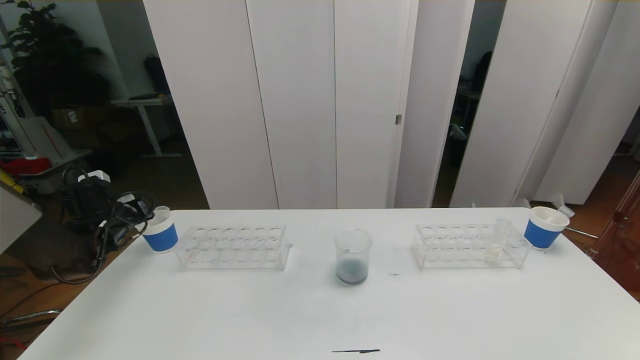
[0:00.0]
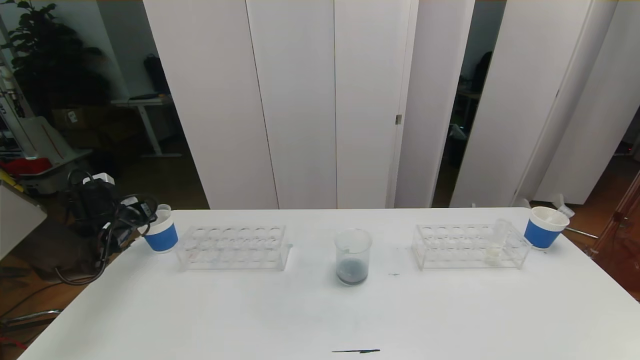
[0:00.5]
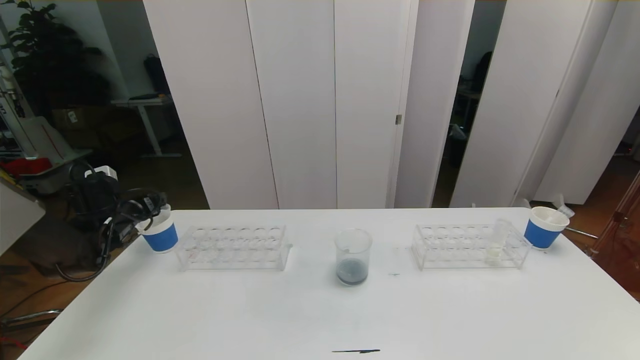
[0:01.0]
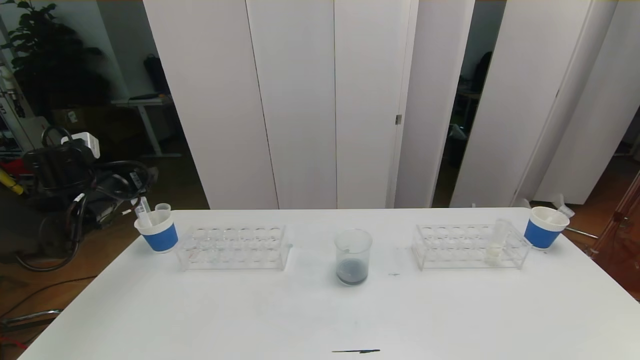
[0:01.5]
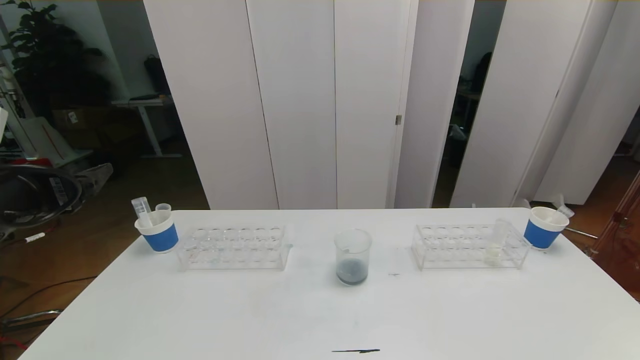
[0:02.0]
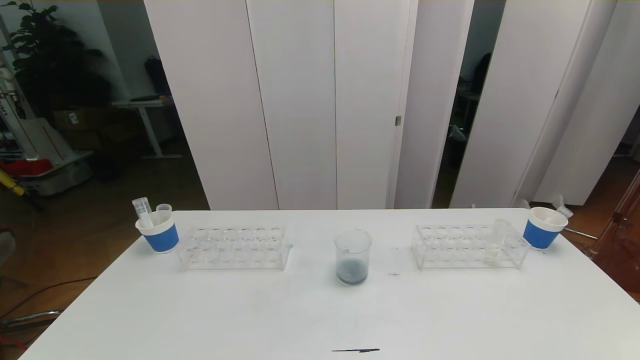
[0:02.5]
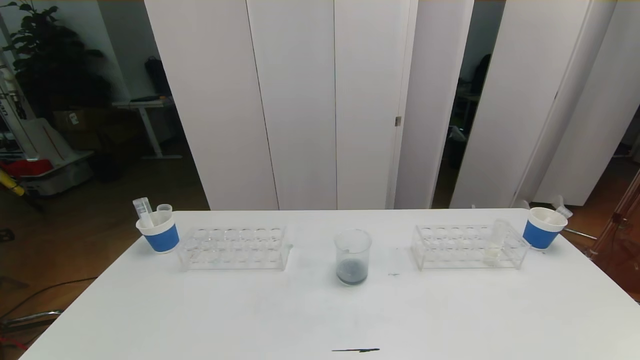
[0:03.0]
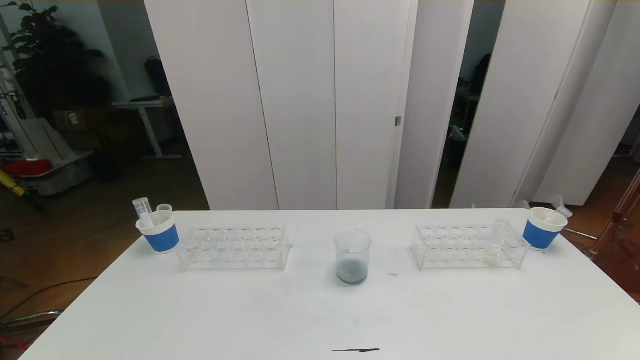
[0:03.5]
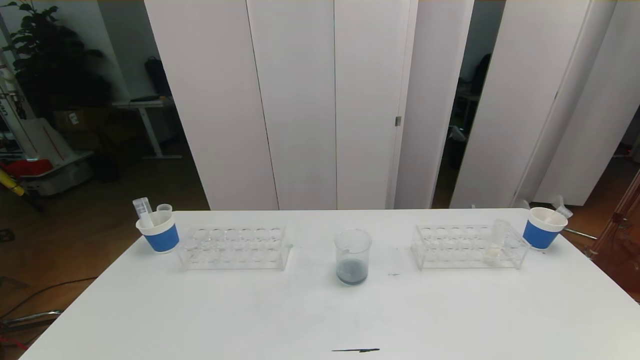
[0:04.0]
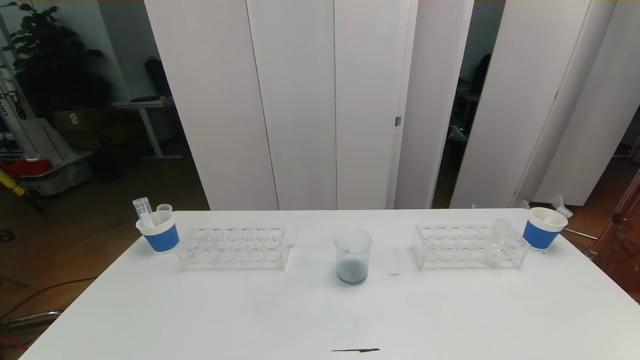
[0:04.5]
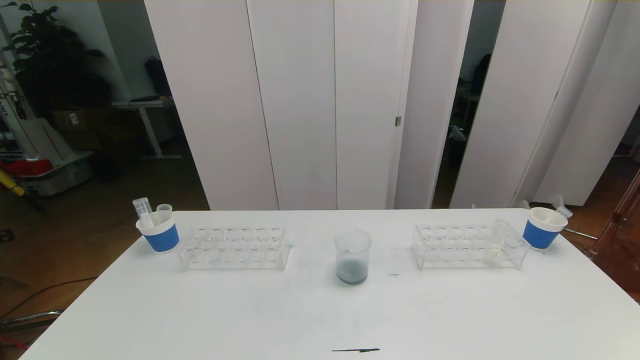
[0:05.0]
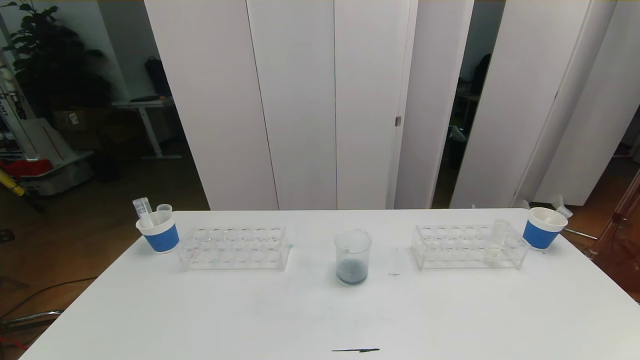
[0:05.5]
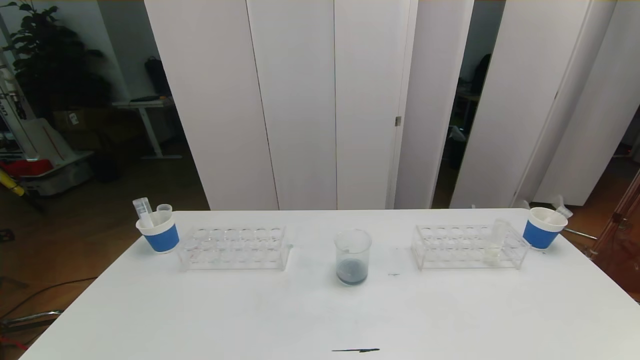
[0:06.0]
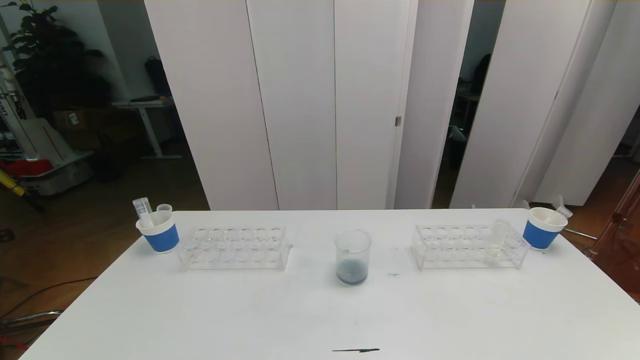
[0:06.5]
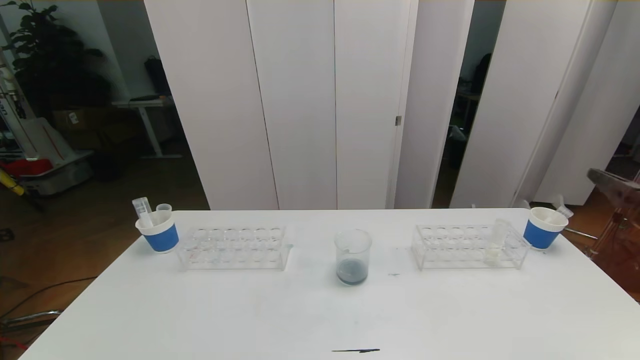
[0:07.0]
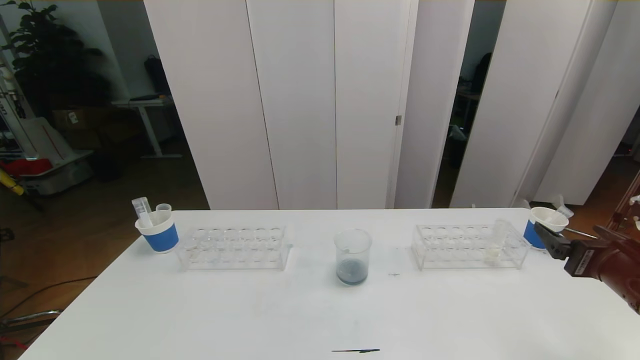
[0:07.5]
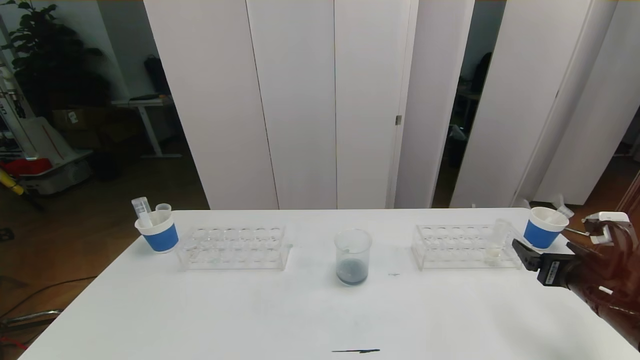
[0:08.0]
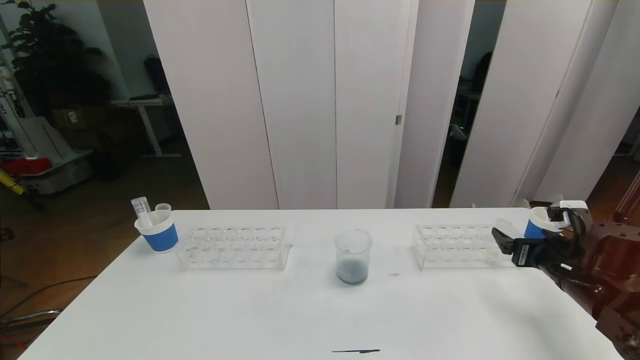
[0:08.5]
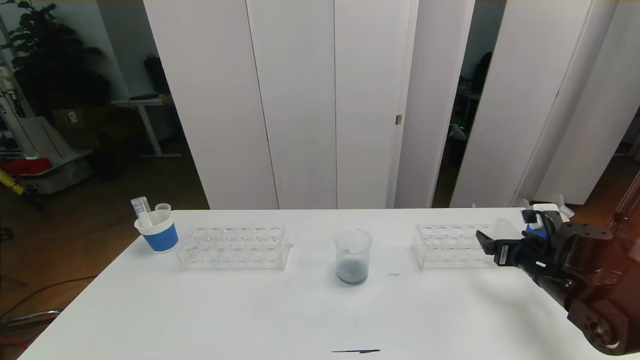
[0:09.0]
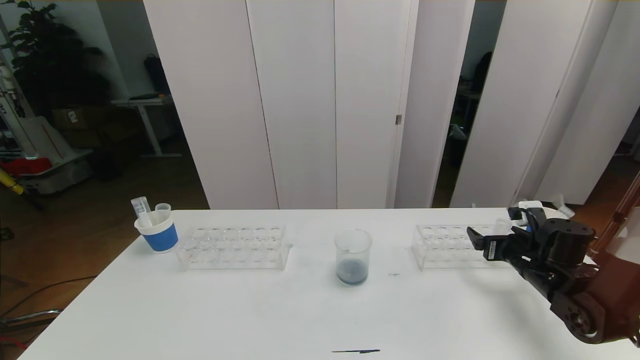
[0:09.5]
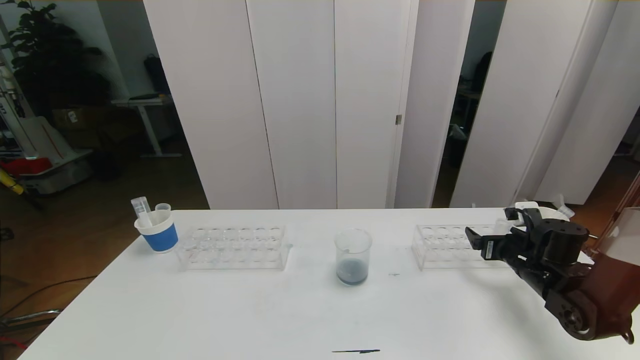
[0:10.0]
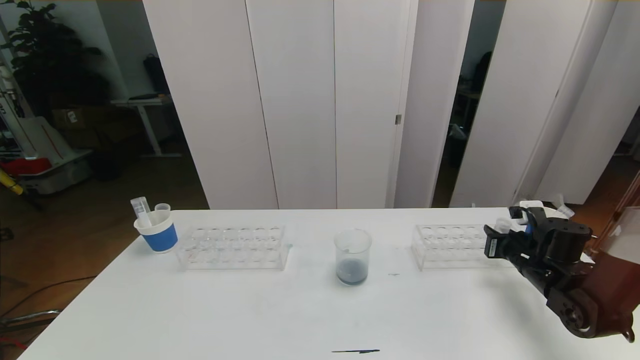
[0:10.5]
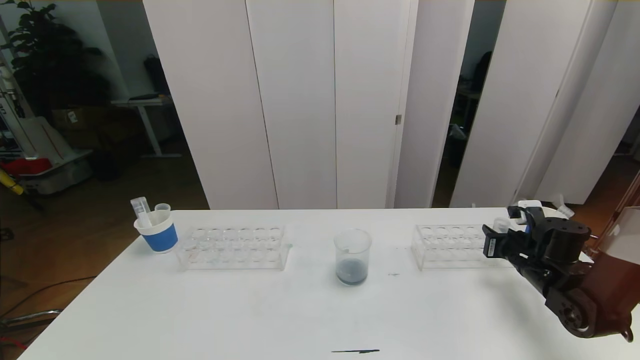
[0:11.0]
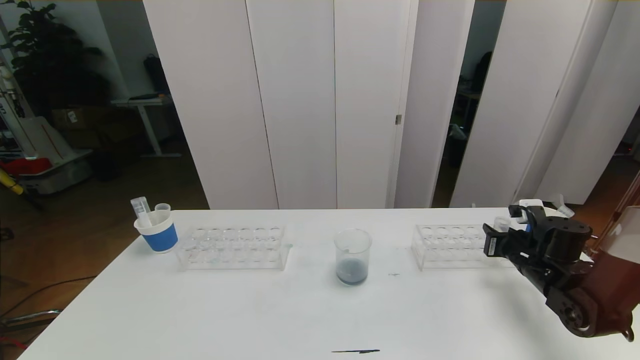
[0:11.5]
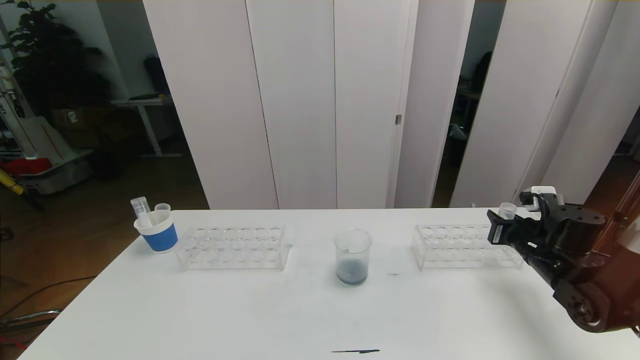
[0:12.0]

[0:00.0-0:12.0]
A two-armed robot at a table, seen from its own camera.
Task of the whole recording: pick up the test tube with red pigment the test tube with blue pigment and the test tube with white pigment by grippers and pour them into the beaker.
Step, 0:00.0 to 0:05.5: Pour the orange reagent into the graduated cylinder and place the test tube into the paper cup.
0:00.0 to 0:02.0: The left gripper moves backward, upward and to the right, approximately 25 cm, and opens up.
0:02.0 to 0:04.0: The left gripper travels backward and downward by about 30 cm.
0:06.0 to 0:08.0: The right gripper moves forward, some 25 cm.
0:08.0 to 0:10.0: The right gripper moves forward and downward, about 10 cm.
0:10.0 to 0:12.0: The right gripper closes up.

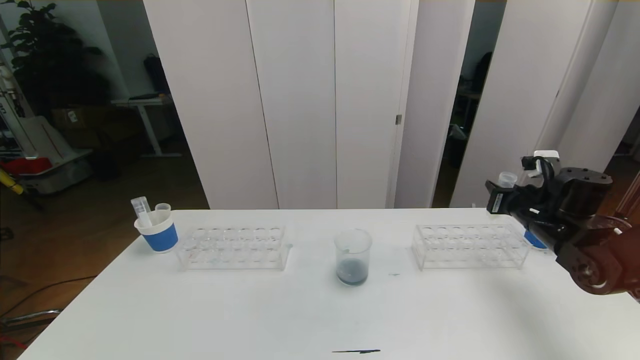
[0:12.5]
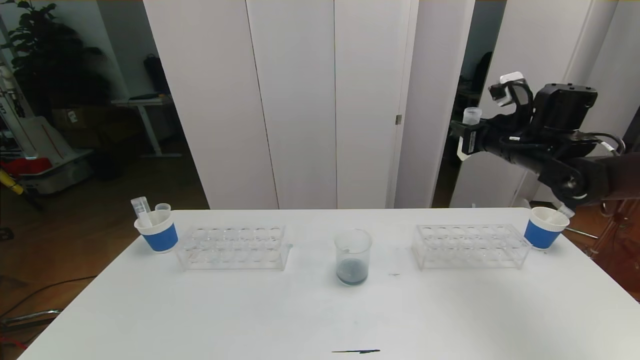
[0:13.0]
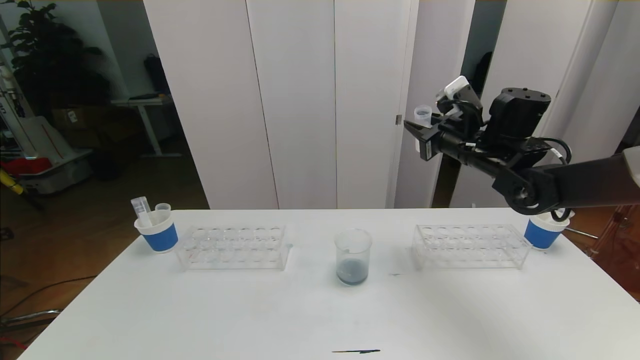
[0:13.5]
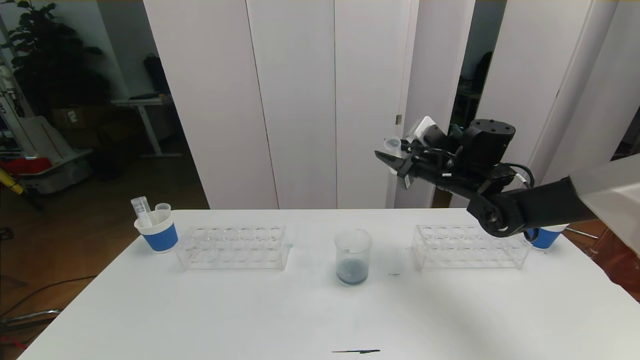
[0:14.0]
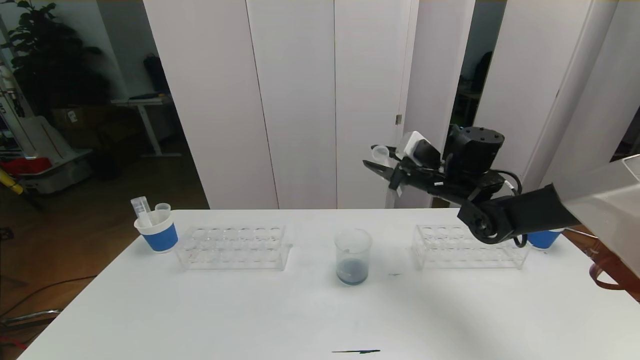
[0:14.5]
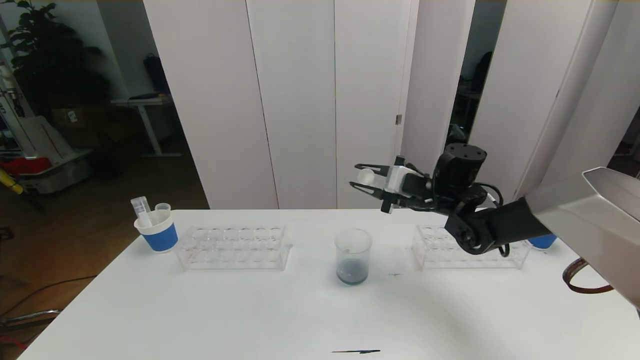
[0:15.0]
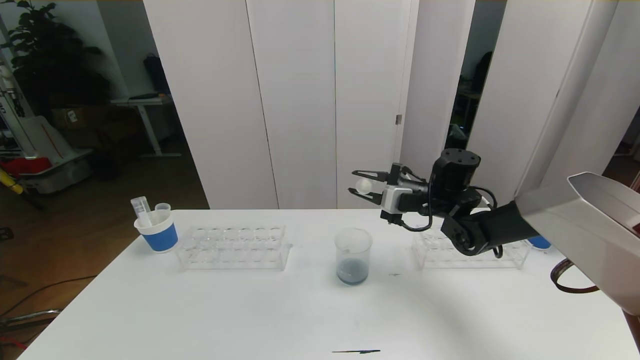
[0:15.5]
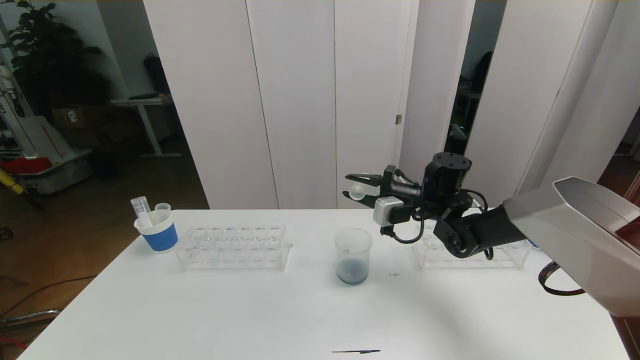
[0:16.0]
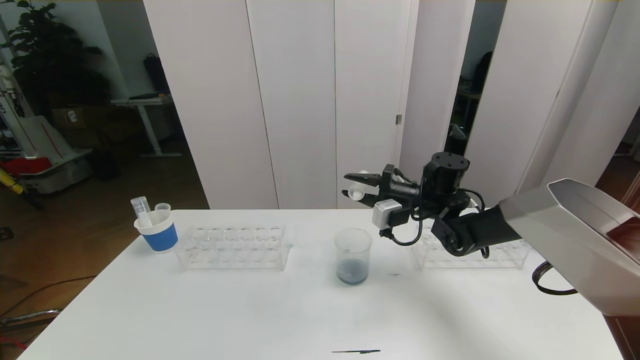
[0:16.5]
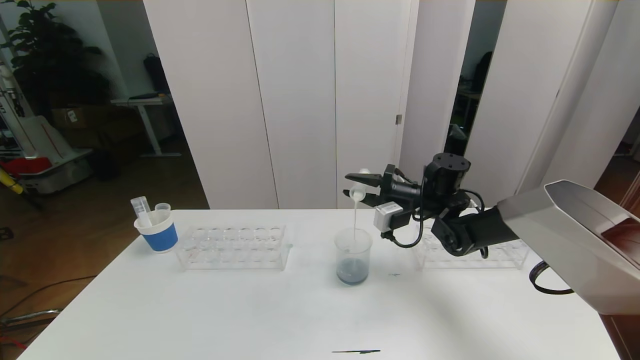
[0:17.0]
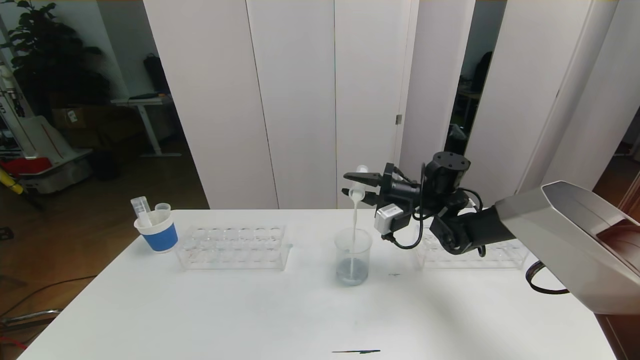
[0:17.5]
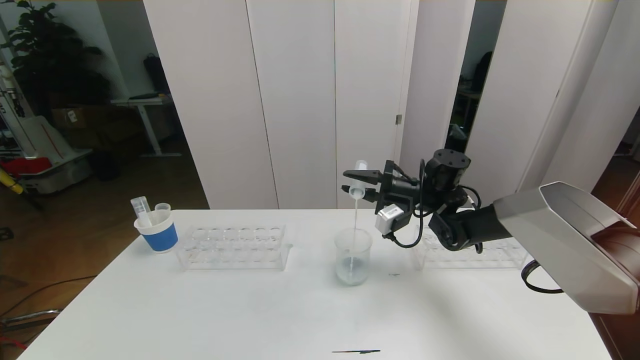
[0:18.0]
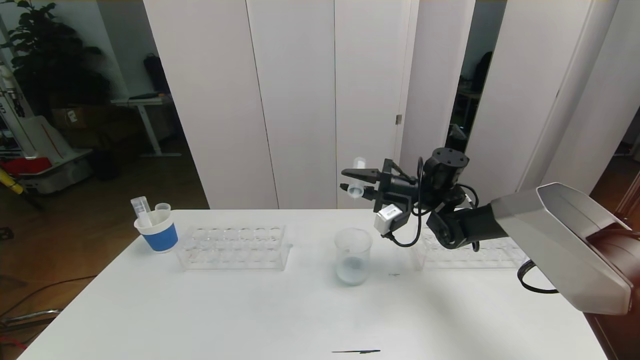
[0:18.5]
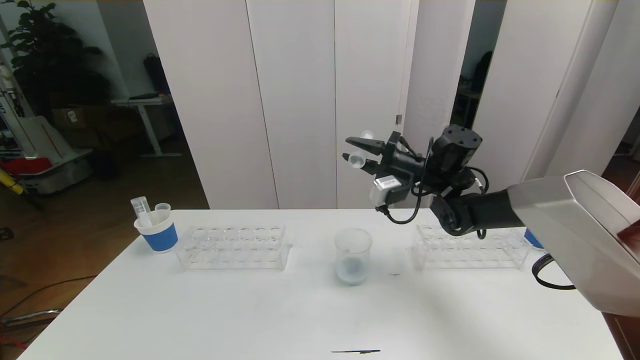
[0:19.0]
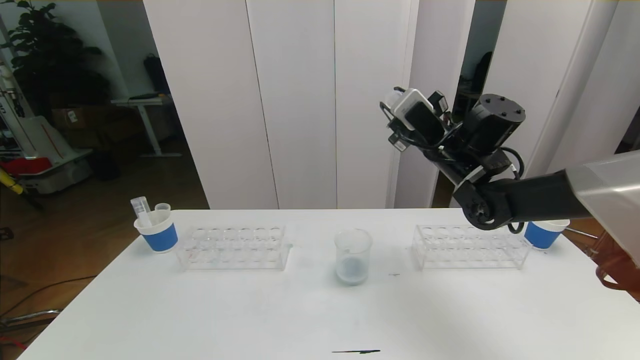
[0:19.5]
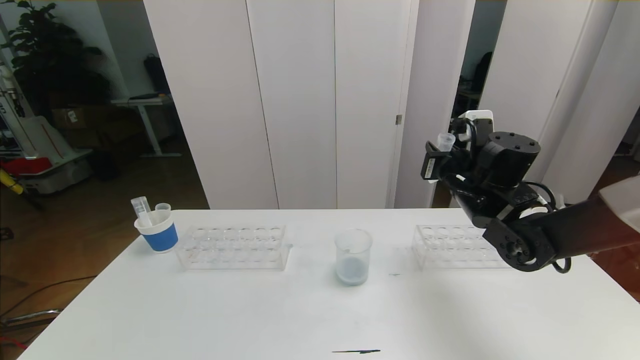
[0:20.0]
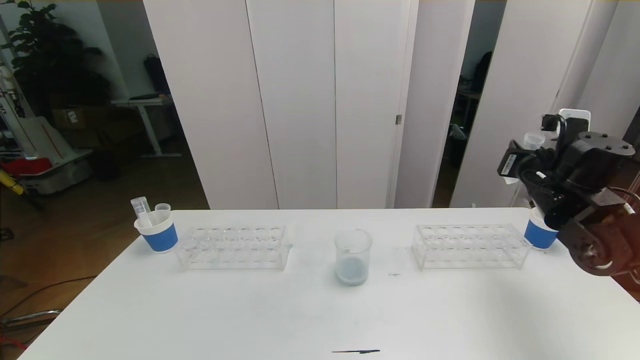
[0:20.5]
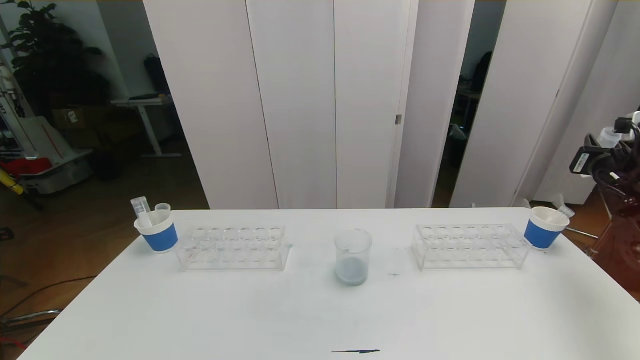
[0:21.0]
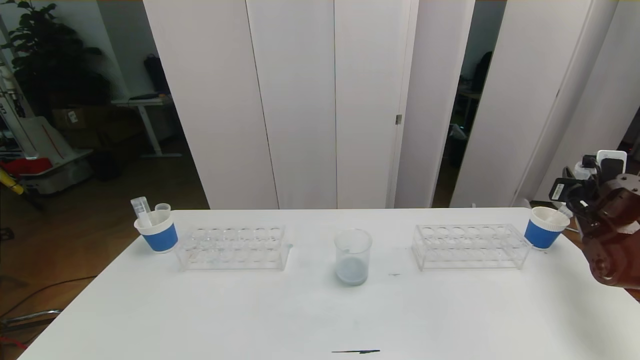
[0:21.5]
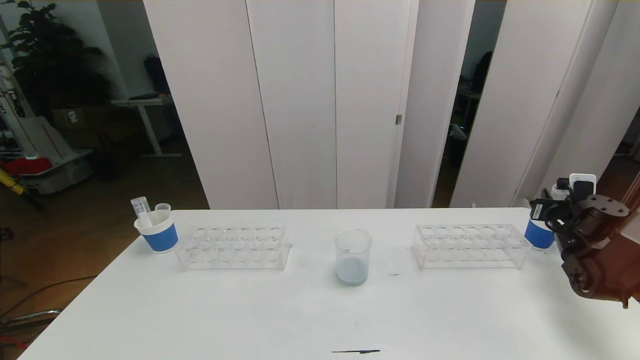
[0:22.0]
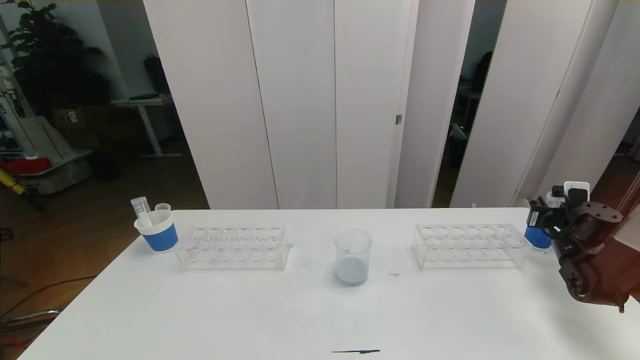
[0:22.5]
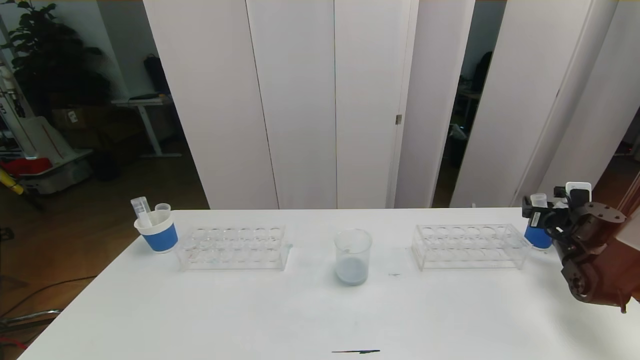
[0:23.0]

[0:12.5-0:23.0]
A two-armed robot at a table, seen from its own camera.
Task of the whole recording: pick up the test tube with red pigment the test tube with blue pigment and the test tube with white pigment by grippers and pour them into the beaker.
0:12.5 to 0:14.5: The right gripper travels to the left by about 15 cm.
0:14.5 to 0:16.5: The right gripper is displaced downward by approximately 5 cm.
0:16.5 to 0:19.0: The right gripper is displaced upward by approximately 5 cm.
0:19.0 to 0:21.0: The right gripper travels to the right by about 30 cm.
0:21.0 to 0:23.0: The right gripper moves downward, roughly 15 cm, and opens.
